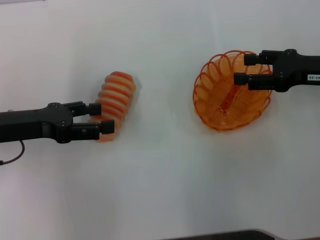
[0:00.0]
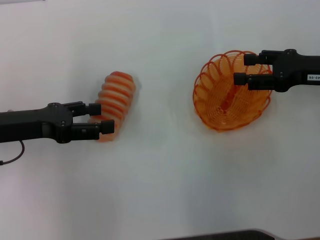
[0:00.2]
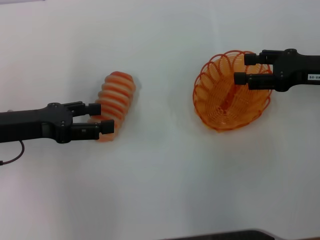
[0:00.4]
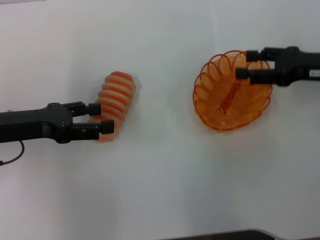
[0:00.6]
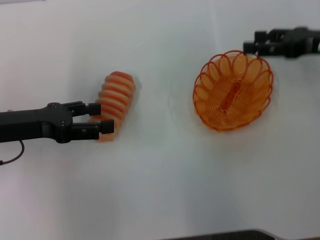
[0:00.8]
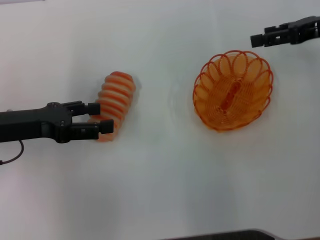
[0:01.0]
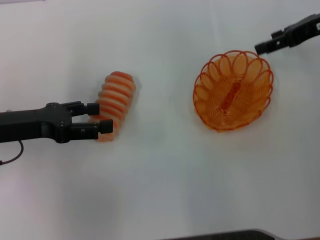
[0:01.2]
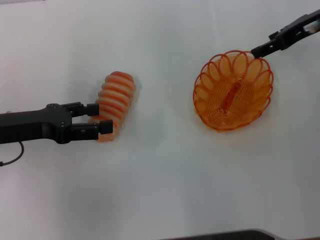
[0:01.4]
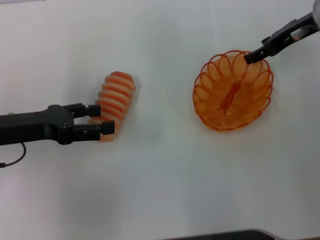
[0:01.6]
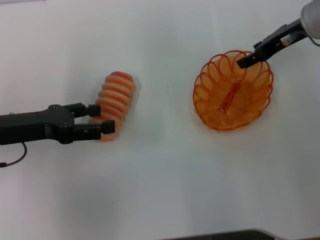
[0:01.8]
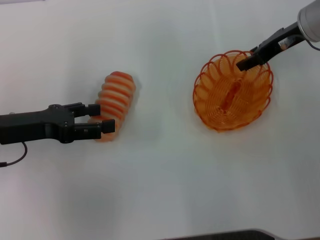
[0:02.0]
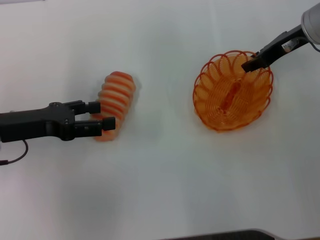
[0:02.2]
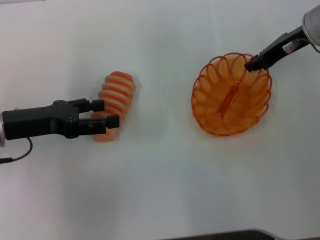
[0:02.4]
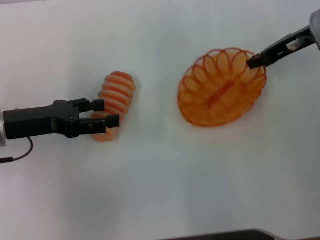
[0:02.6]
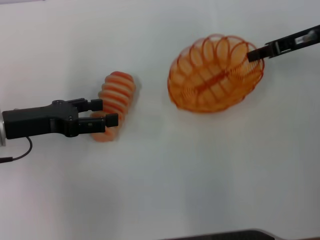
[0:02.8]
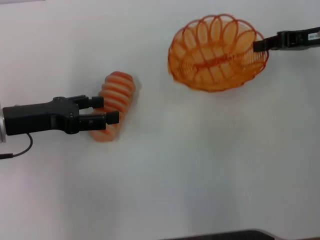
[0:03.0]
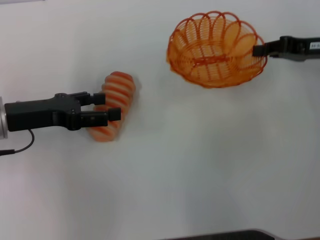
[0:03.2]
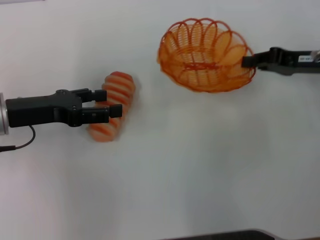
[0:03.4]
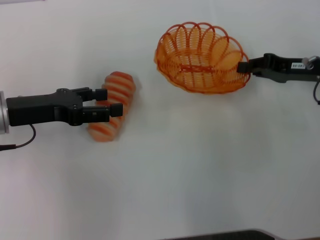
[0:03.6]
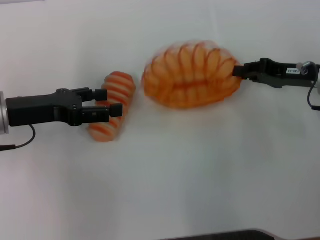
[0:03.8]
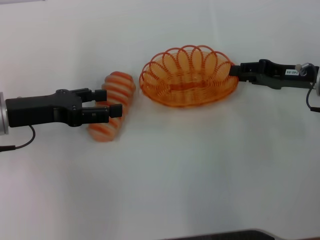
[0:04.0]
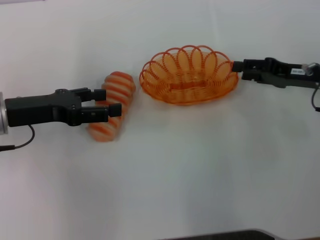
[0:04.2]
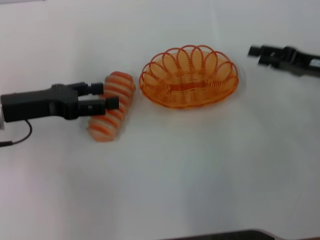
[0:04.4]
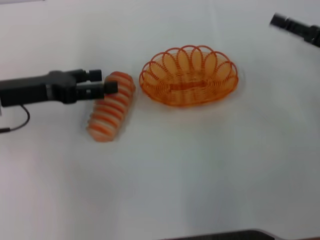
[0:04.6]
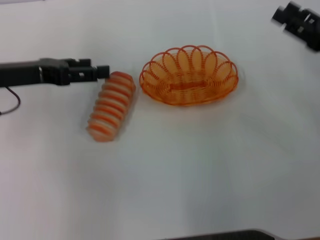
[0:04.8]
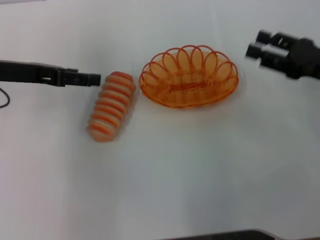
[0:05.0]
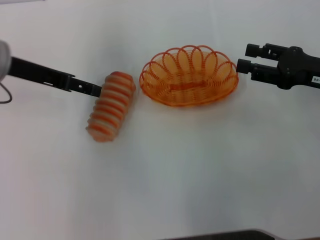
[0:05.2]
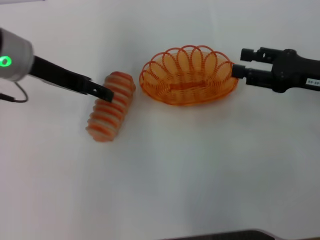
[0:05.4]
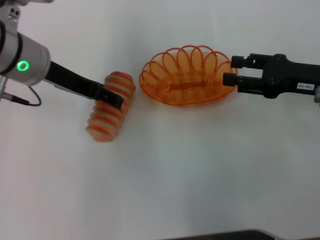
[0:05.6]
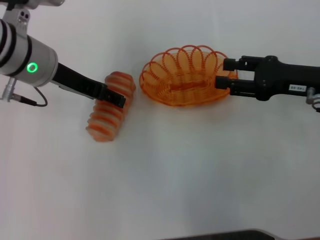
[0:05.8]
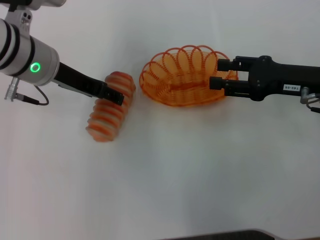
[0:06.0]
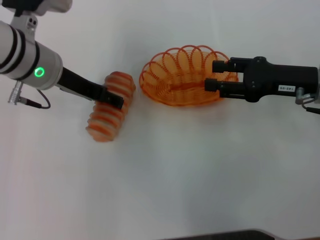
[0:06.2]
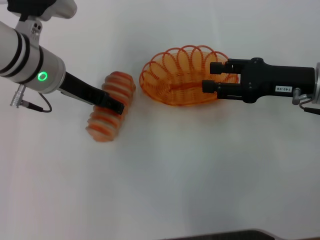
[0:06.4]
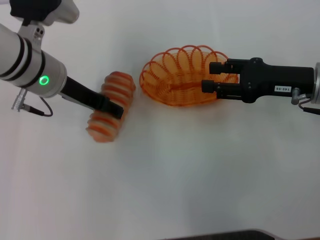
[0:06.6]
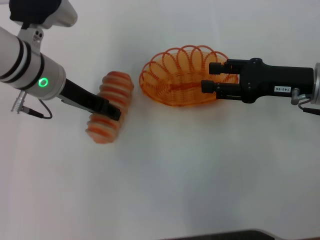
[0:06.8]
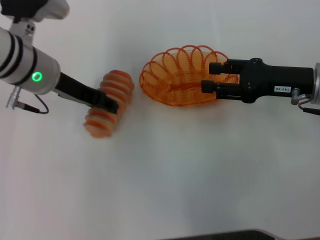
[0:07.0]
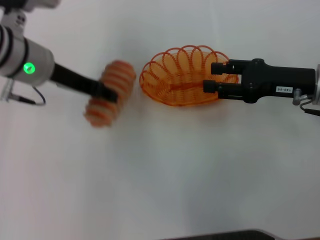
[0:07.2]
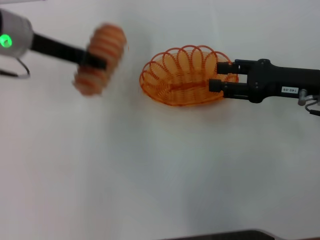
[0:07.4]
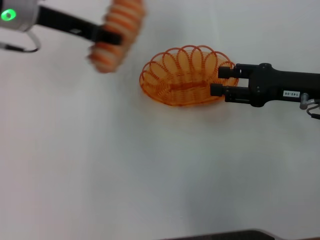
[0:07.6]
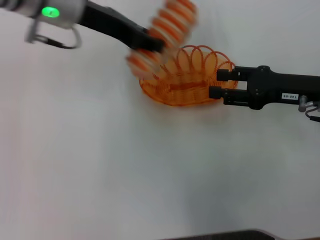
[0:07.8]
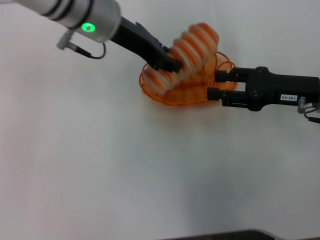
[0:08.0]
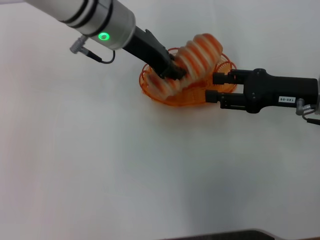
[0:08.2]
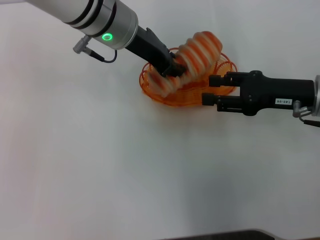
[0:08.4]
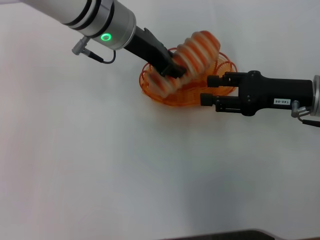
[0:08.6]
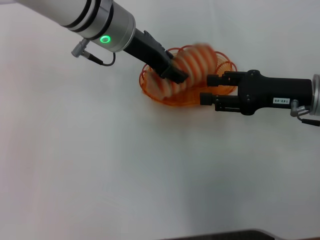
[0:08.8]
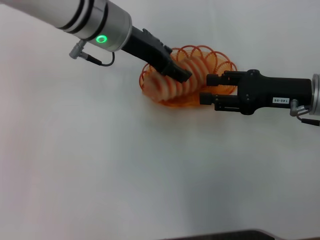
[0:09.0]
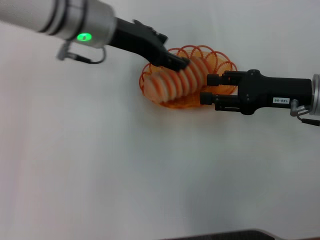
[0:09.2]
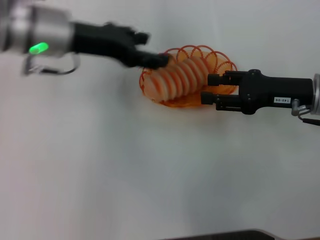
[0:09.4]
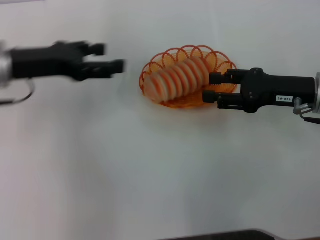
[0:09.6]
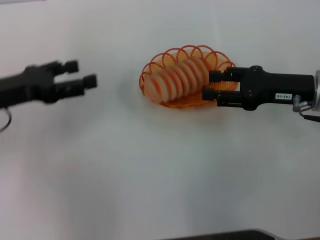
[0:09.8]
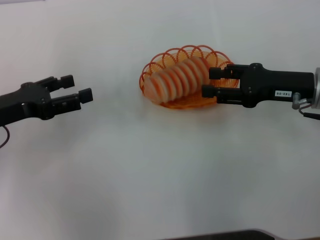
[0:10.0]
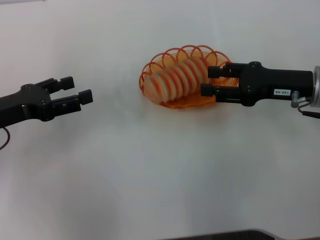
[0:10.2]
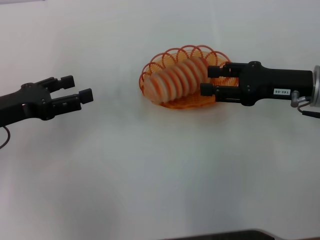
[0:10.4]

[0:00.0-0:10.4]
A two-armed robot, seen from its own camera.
Step, 0:00.0 to 0:02.6: Pick up the basket with the right gripper.
Step, 0:02.8 to 0:04.2: Place the basket in the center of view with the right gripper.
Step, 0:04.4 to 0:07.0: Pick up the long bread with the left gripper.
Step, 0:07.2 to 0:09.0: Place the long bread into the basket with the left gripper.
0:00.0 to 0:01.4: The right gripper heads forward and upward, covering roughly 10 cm.
0:01.4 to 0:03.0: The right gripper moves roughly 5 cm, and closes up.
0:03.0 to 0:04.4: The right gripper goes about 10 cm downward and backward, and opens.
0:04.4 to 0:06.0: The right gripper shifts by some 5 cm, while the left gripper moves to the right, forward and upward, approximately 10 cm.
0:06.0 to 0:07.4: The left gripper closes up.
0:07.4 to 0:09.0: The left gripper goes some 10 cm to the right, and closes and opens again.
0:09.0 to 0:10.4: The left gripper heads to the left and backward, covering about 25 cm, and opens.
